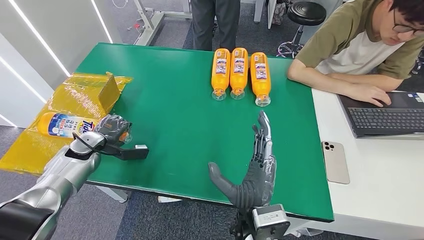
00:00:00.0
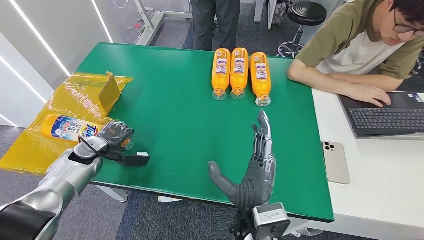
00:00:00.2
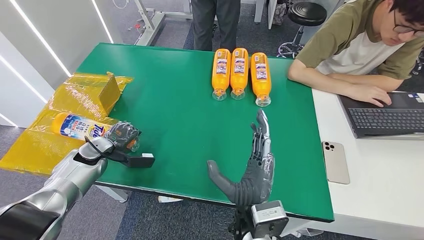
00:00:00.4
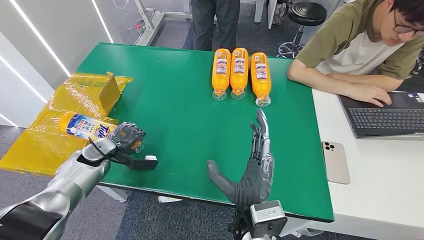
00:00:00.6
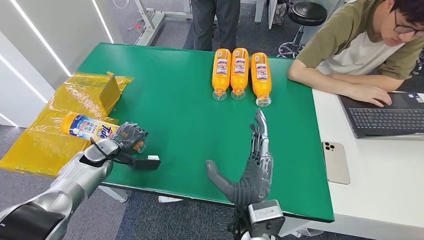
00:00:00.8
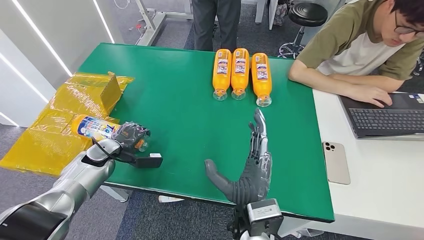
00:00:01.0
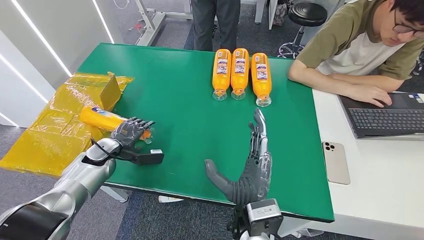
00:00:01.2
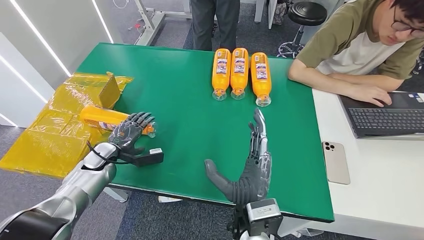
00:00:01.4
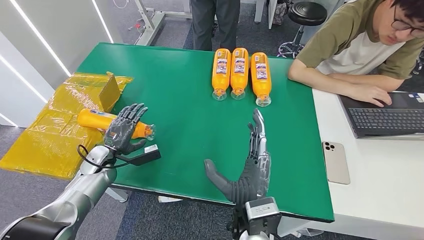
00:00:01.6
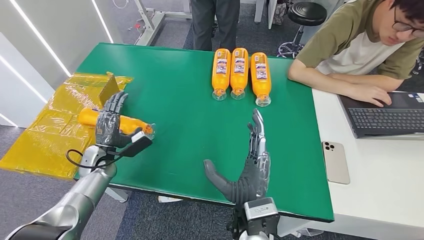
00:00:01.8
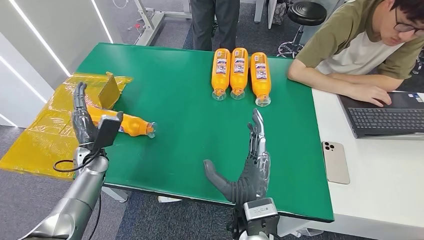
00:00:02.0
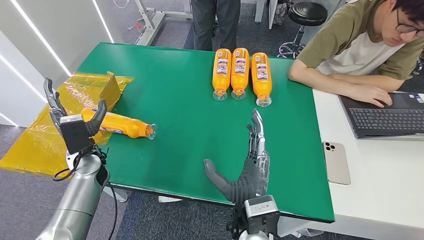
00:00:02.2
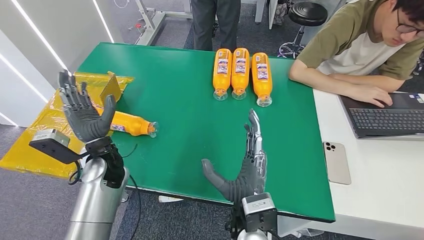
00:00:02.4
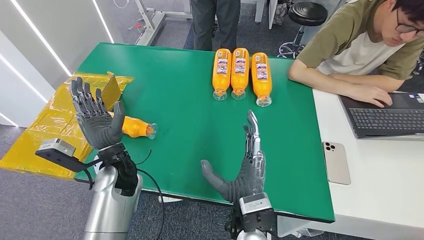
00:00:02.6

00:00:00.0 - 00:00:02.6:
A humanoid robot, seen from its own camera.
Step, 00:00:00.0 - 00:00:02.6: Turn the bottle to the front side.
00:00:00.0 - 00:00:01.2: The hands make only small movements.
00:00:01.2 - 00:00:02.6: The left hand travels to the right and upward by approximately 20 cm.
